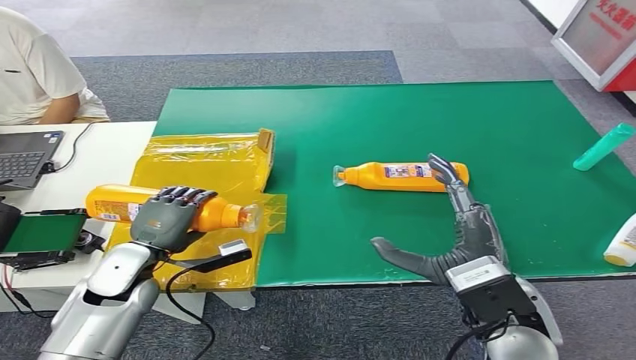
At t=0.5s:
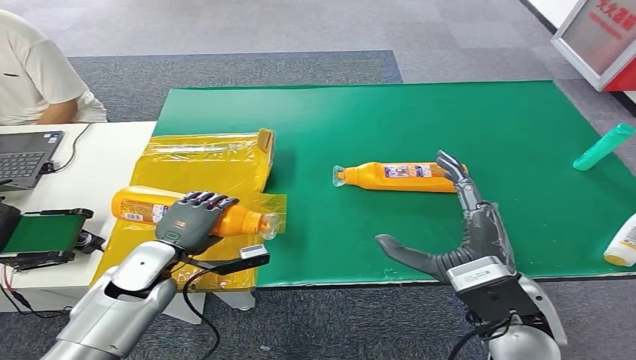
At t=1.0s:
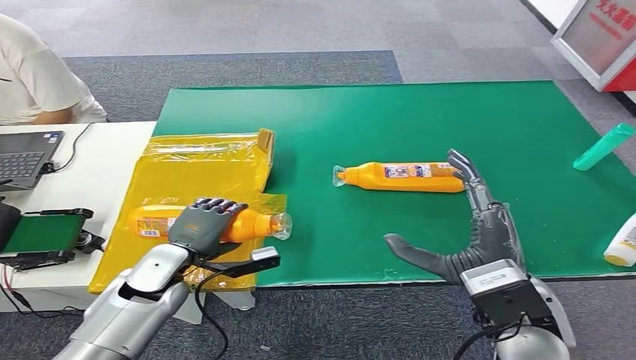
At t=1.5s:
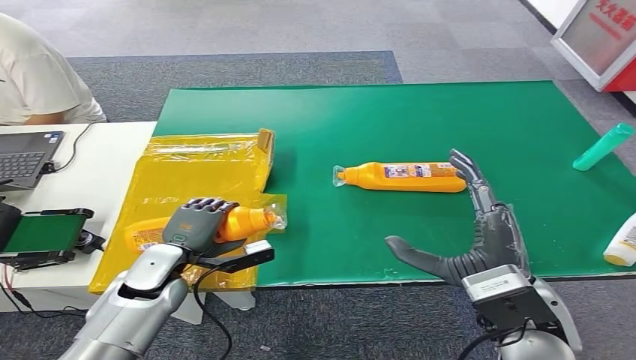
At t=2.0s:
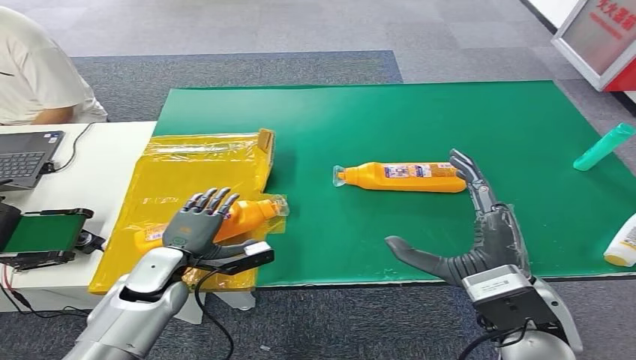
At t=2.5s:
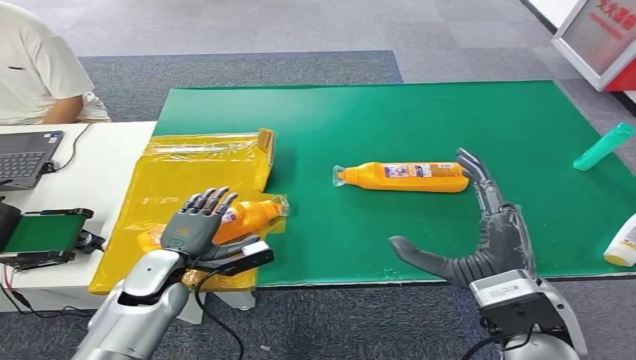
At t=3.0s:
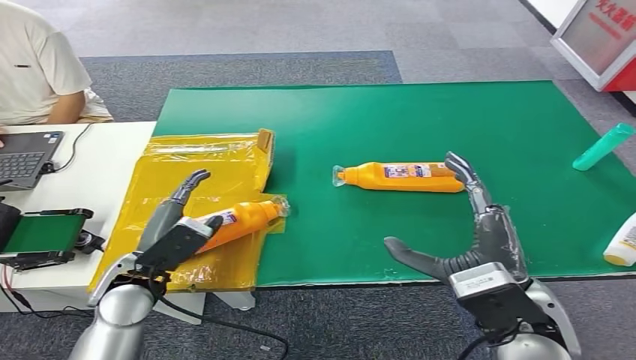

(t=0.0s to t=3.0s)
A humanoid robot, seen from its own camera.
Step, t=0.0s - t=3.0s: Turn the bottle to the front side.
t=0.0s - t=1.5s: The hands stay close to where they were, moving slightly.
t=1.5s - t=3.0s: The left hand moves upward, roughly 5 cm.
